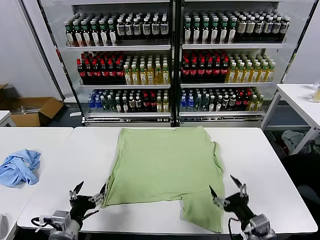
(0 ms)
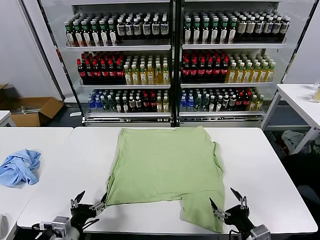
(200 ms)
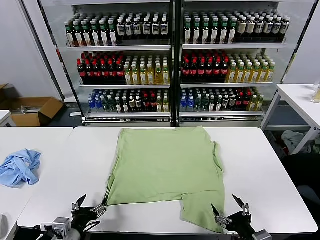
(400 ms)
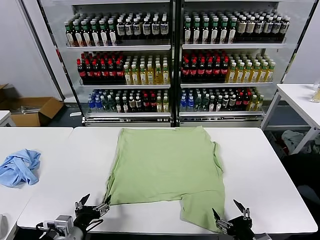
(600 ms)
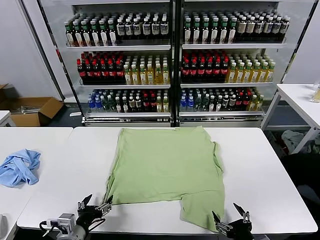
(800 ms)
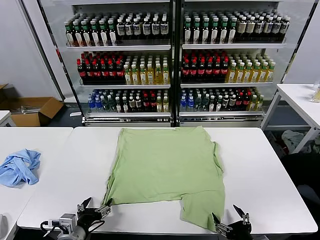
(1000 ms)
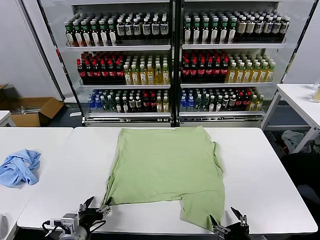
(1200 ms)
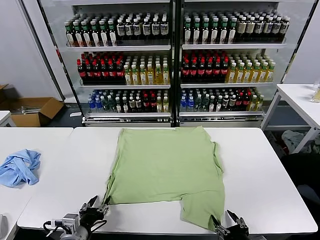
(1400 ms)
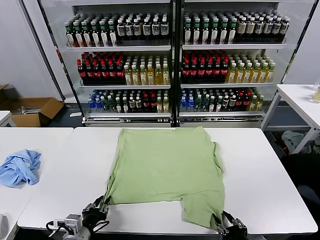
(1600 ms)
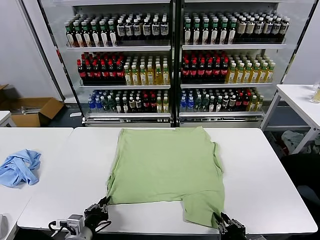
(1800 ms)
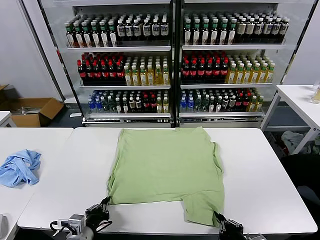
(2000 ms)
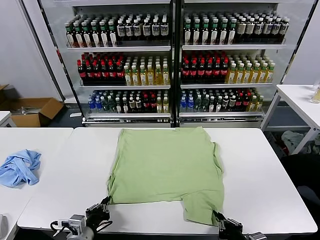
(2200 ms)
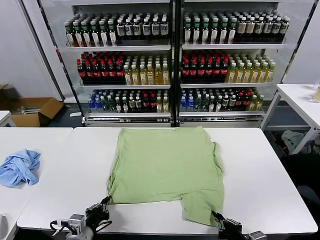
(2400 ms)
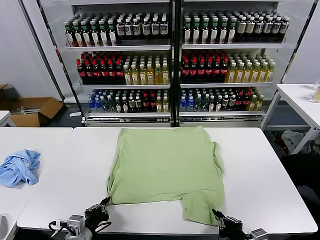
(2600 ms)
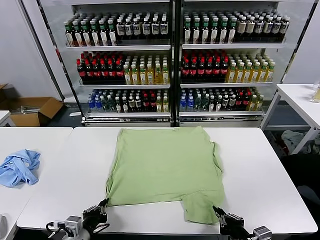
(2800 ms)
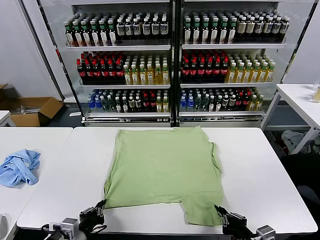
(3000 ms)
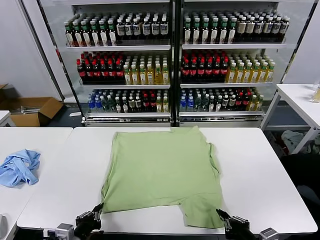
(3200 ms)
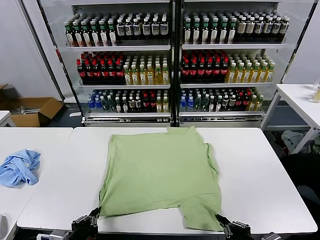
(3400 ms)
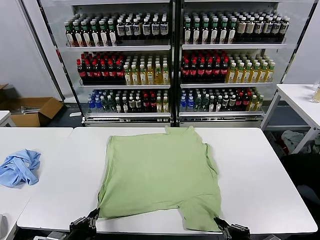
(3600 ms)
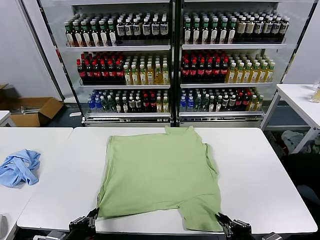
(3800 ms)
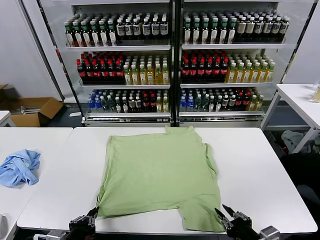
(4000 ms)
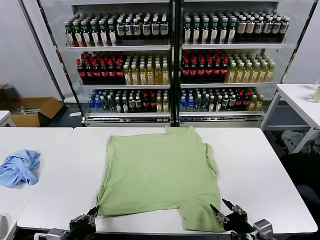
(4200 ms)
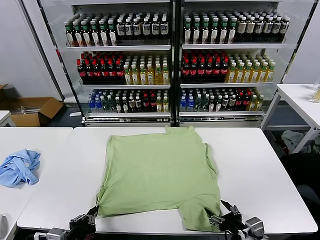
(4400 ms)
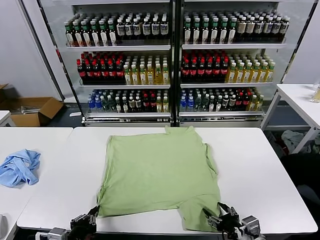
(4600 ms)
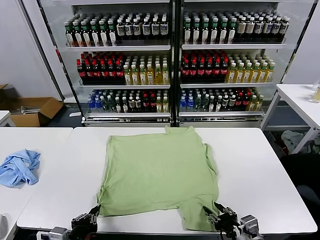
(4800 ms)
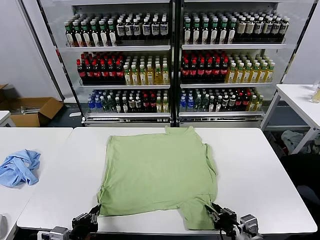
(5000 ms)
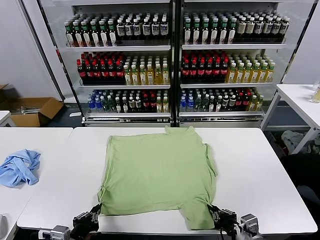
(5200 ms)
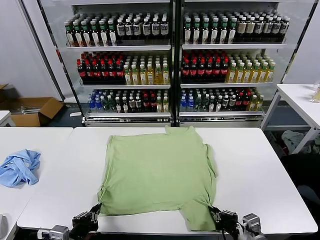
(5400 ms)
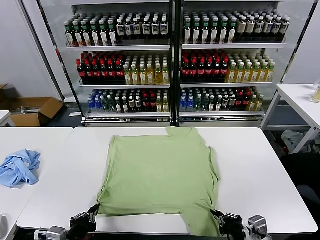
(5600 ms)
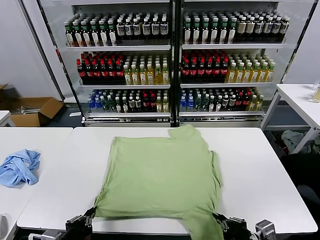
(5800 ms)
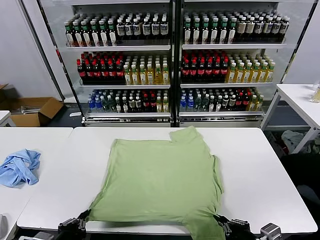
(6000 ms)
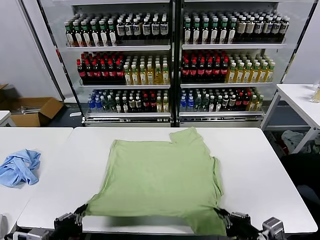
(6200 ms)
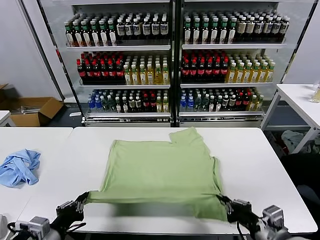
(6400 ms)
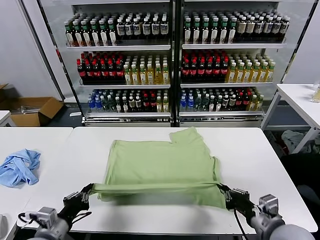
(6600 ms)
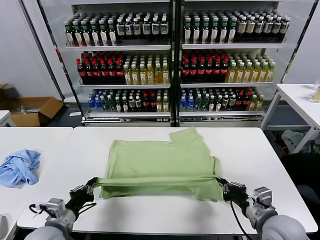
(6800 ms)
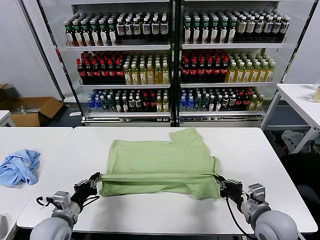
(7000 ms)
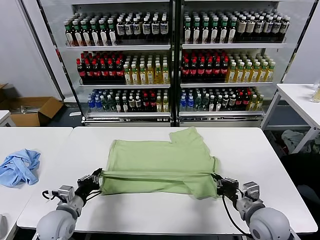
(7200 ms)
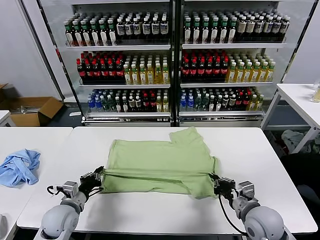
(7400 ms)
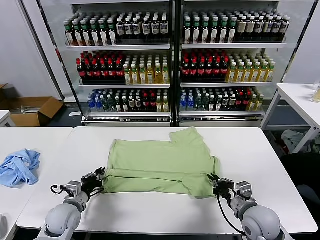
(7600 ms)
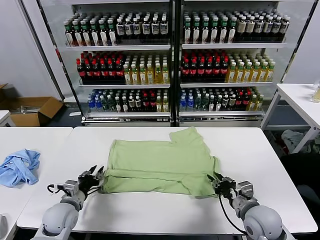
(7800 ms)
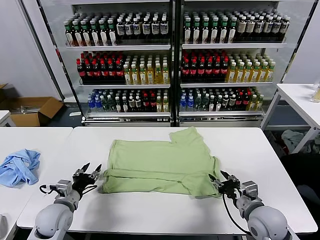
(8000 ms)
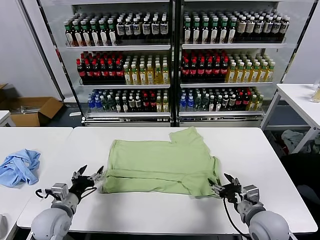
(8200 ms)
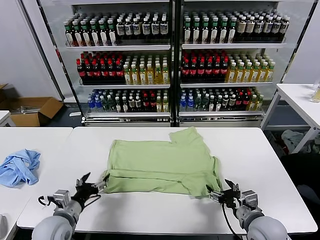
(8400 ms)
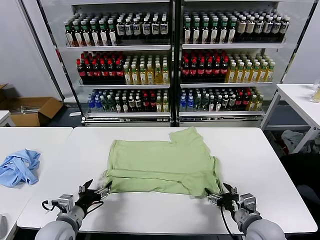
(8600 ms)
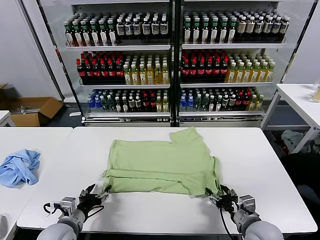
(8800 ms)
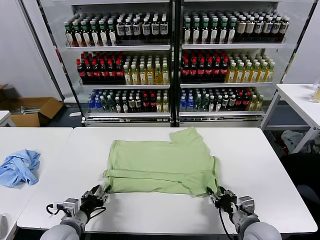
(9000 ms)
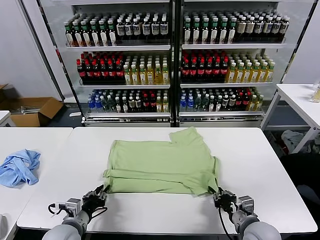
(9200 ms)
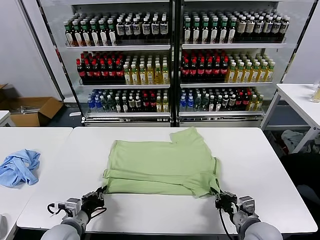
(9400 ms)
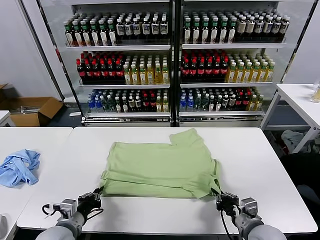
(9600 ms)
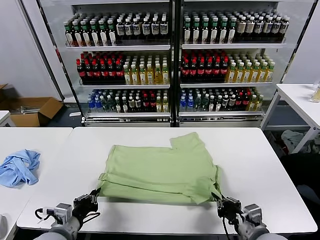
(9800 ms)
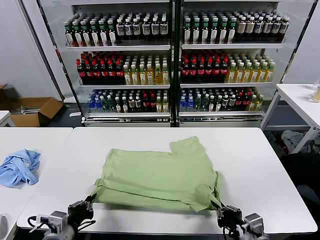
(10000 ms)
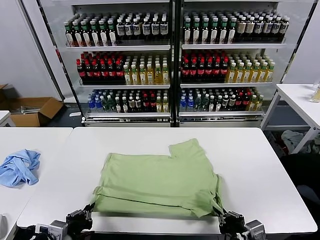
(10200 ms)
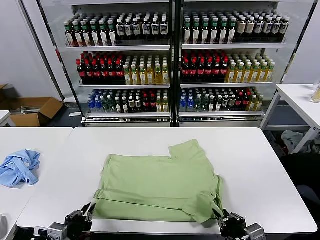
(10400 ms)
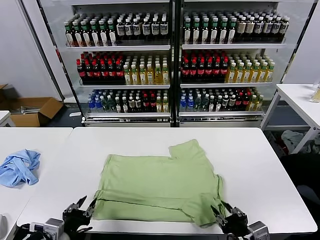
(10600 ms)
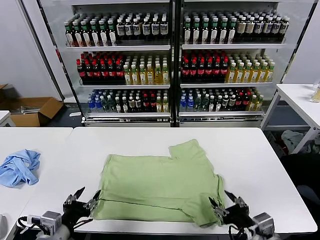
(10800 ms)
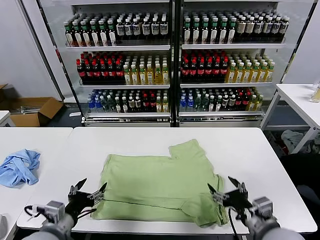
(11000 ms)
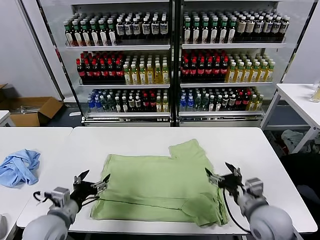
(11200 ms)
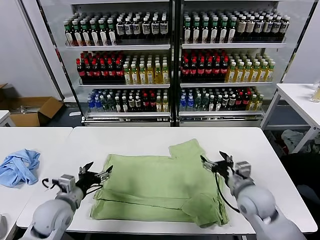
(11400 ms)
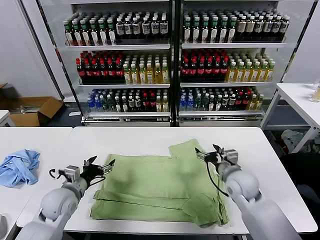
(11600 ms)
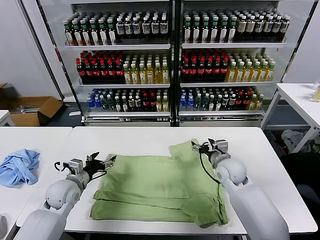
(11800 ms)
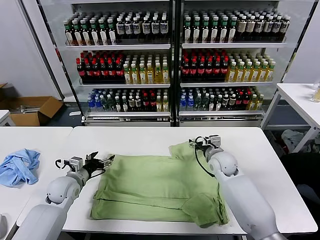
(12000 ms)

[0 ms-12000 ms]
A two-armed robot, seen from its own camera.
Task of the whole recording: fold and organize the clothes.
Step, 0 ms to 3400 ms: use both grippers simultaneously to clamp the lower edge of the clothing fabric.
Step, 3600 ms to 8000 ms: use both grippers to drag the lower edge of the fabric forward and fold it over the upper edge.
Step, 8200 ms to 10600 ms: Drag the clothes downward with both gripper.
1600 ms to 3000 ms: The right gripper heads upward, covering roughly 5 cm.
3000 ms to 4400 ms: The right gripper opens.
4400 ms to 6000 ms: The right gripper is displaced upward by approximately 10 cm, and closes.
6000 ms to 7600 ms: Both grippers travel together forward and downward, roughly 20 cm.
7600 ms to 9000 ms: The right gripper opens and closes again. The left gripper moves backward, roughly 5 cm, and opens up.
9000 ms to 10400 ms: Both grippers move backward and upward, about 10 cm.
10400 ms to 12000 ms: The grippers both shift forward by roughly 30 cm. The right gripper opens, while the left gripper opens its fingers.

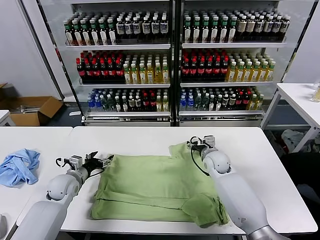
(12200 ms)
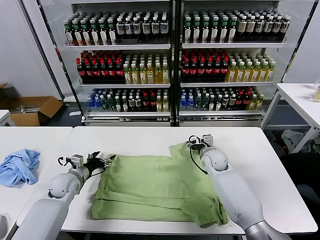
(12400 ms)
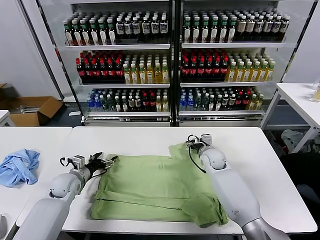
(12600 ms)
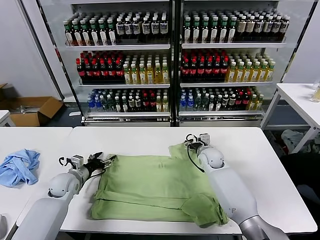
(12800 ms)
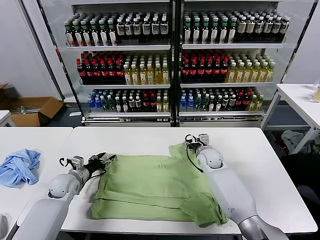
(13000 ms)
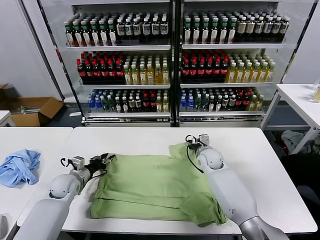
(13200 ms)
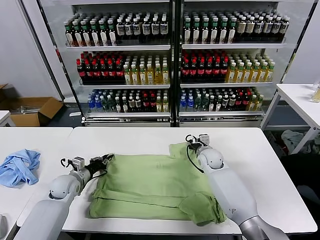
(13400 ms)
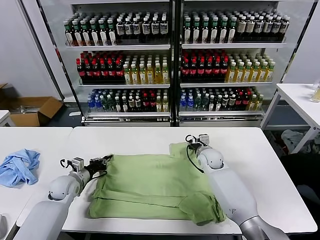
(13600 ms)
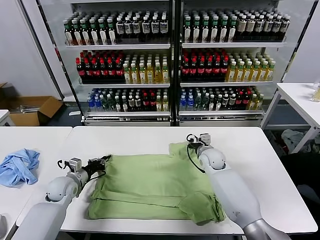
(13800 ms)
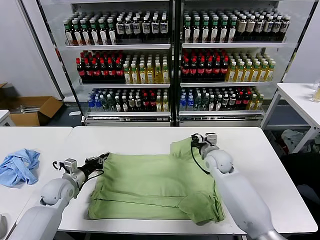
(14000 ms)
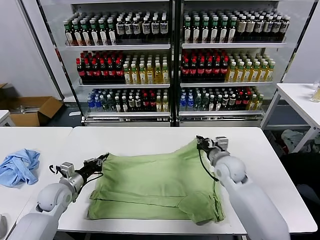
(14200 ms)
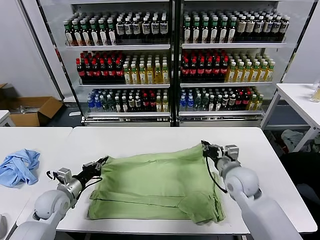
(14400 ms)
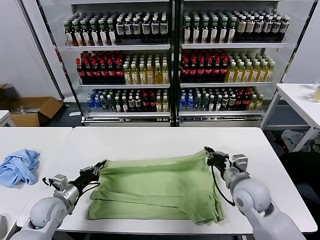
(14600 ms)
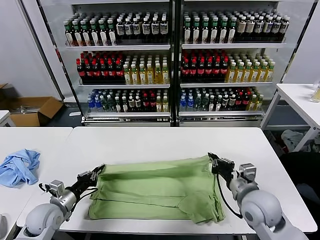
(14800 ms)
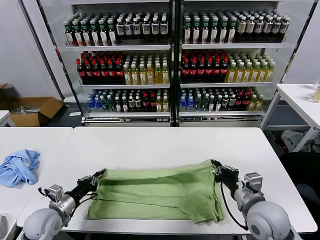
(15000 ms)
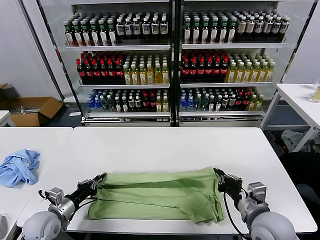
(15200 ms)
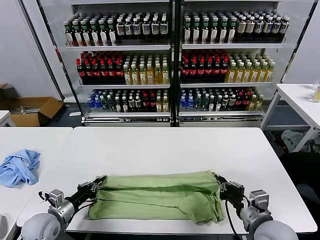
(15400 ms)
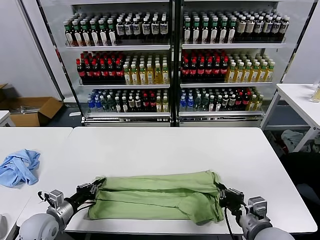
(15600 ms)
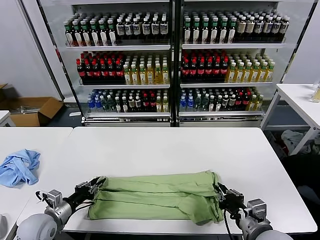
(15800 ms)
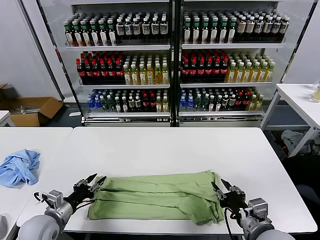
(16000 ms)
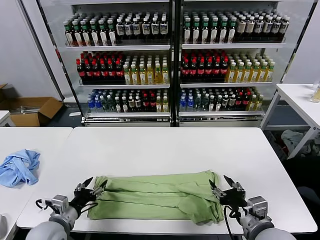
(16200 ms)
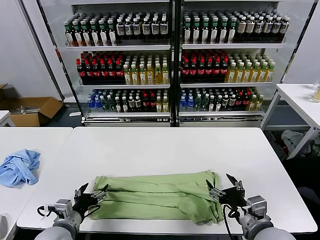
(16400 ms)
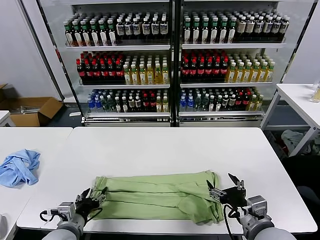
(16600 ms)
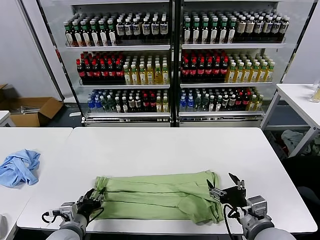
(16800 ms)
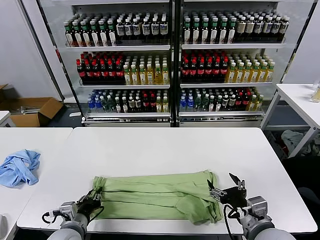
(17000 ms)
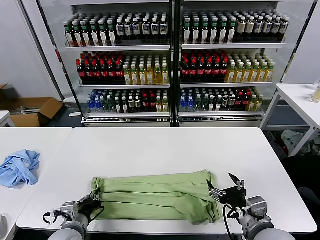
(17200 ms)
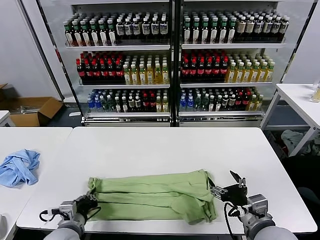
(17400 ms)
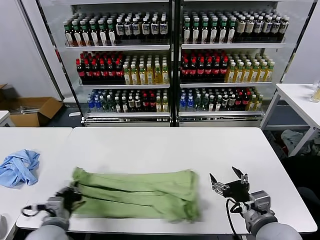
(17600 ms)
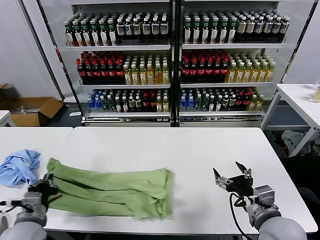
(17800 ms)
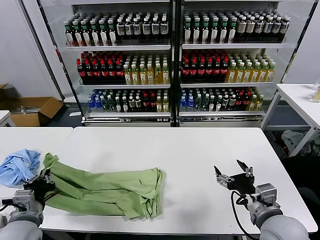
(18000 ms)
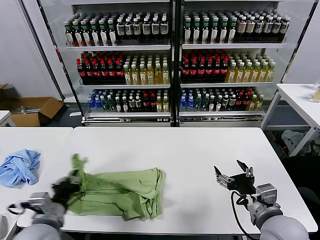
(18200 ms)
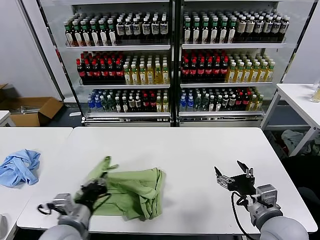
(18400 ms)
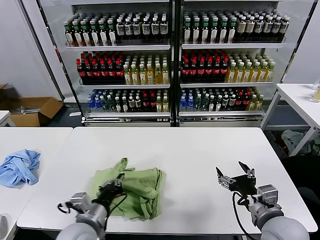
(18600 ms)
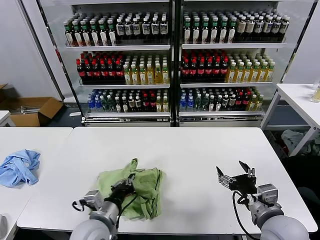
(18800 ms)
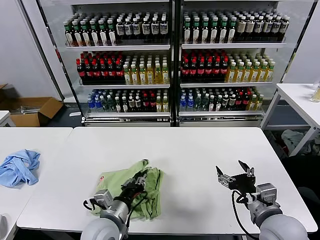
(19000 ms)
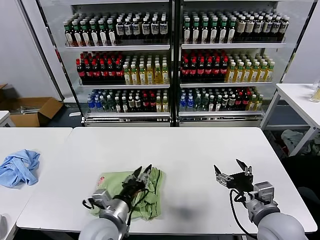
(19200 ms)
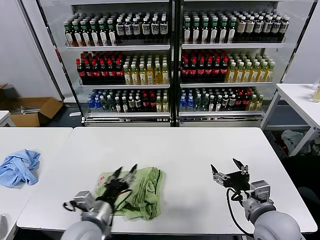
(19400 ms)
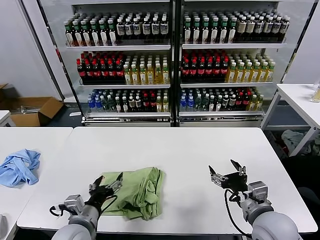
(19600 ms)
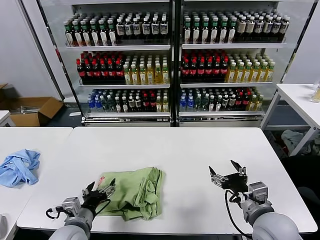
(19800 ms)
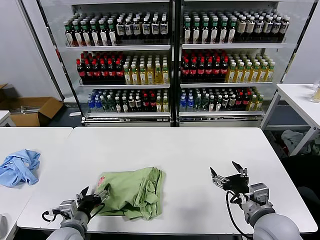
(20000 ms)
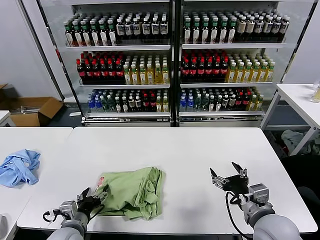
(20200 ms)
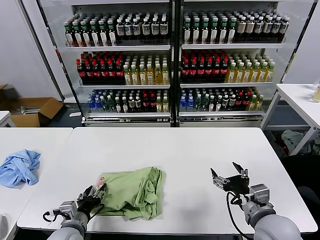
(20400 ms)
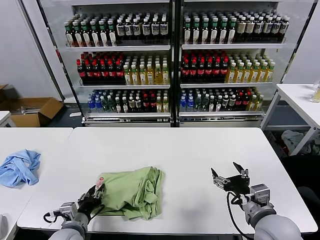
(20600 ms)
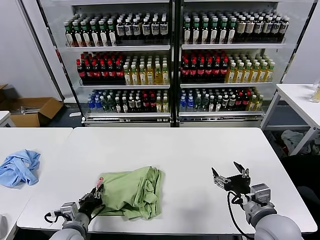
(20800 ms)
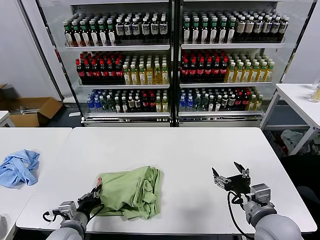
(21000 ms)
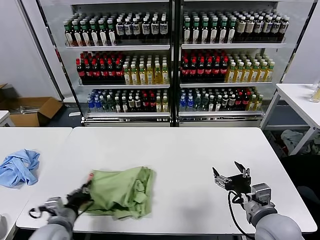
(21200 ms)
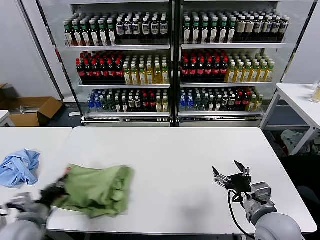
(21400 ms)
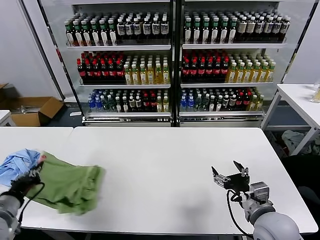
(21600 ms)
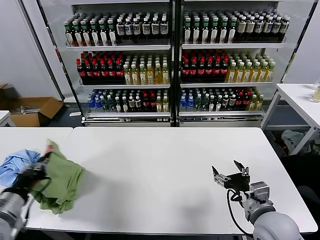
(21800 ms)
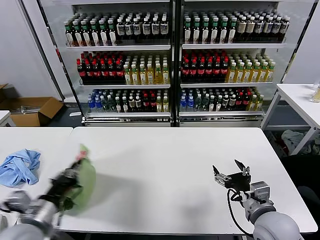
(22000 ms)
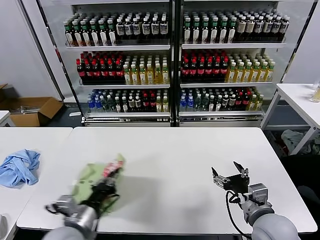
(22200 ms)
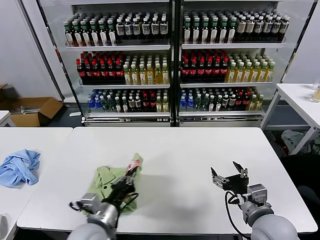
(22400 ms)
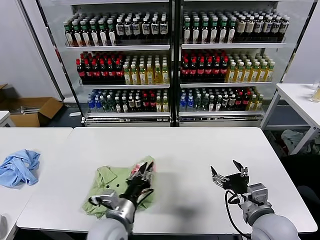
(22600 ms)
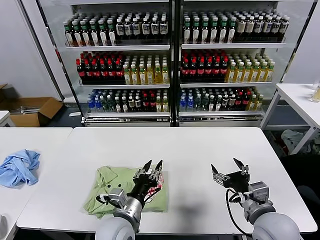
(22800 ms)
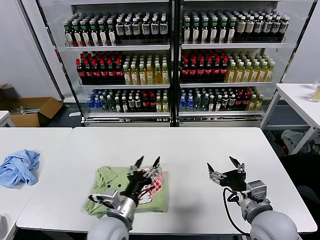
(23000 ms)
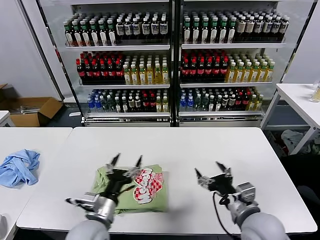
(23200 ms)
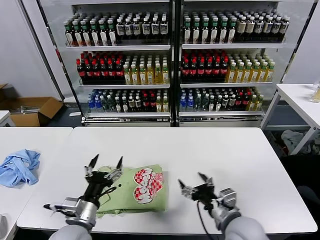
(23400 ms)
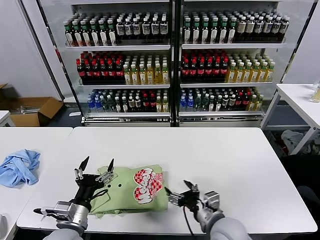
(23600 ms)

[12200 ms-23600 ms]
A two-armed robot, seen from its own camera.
Task of the whole recording: fold and organize the clothes.
Step, 12200 ms to 13600 ms: use both grippers simultaneously to clamp the upper edge of the clothing fabric.
Step, 13800 ms to 16000 ms: use both grippers to drag the upper edge of the fabric backward and fold it over the lower edge.
Step, 16200 ms to 17200 ms: use the left gripper to clamp the left edge of the fabric.
Step, 17400 ms to 19200 ms: use the left gripper to drag the left edge of the fabric to the left and folds it over the right edge.
Step, 19400 ms to 22800 ms: Flip the folded clothes over with left gripper.
12200 ms to 13600 ms: The right gripper closes up. The left gripper closes its fingers.
13600 ms to 15000 ms: The right gripper is displaced backward by some 25 cm, while the left gripper travels backward by approximately 15 cm.
15000 ms to 16400 ms: The left gripper moves to the right and backward, approximately 10 cm, and opens its fingers. The right gripper travels backward by some 5 cm, and opens.
16400 ms to 17800 ms: The left gripper shifts some 5 cm upward, and closes its fingers.
17800 ms to 19400 ms: The left gripper moves to the right, approximately 15 cm, and opens up.
19400 ms to 20800 ms: The left gripper moves downward and to the left, roughly 10 cm, and closes its fingers.
20800 ms to 22200 ms: The left gripper heads upward, covering roughly 10 cm, and goes to the left and returns, about 15 cm each way.
22200 ms to 23600 ms: The left gripper moves about 15 cm to the right and comes back, and opens up, while the right gripper shifts some 10 cm to the left and downward.
